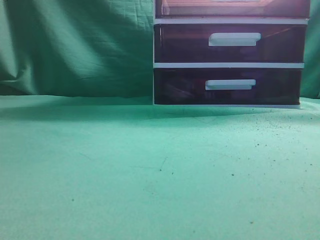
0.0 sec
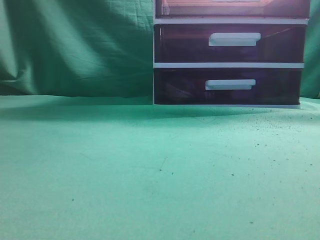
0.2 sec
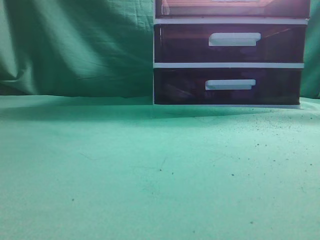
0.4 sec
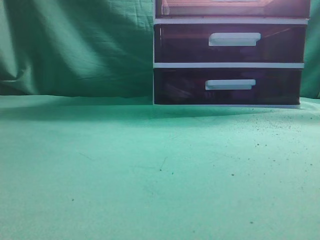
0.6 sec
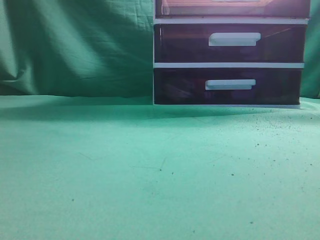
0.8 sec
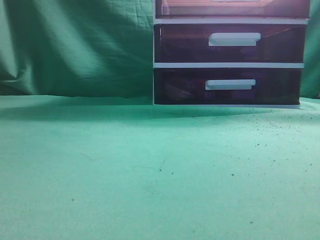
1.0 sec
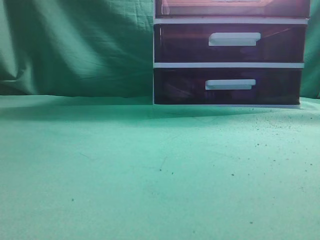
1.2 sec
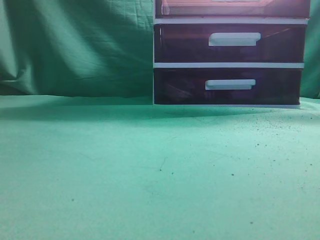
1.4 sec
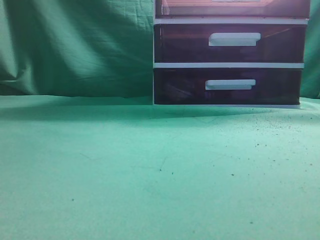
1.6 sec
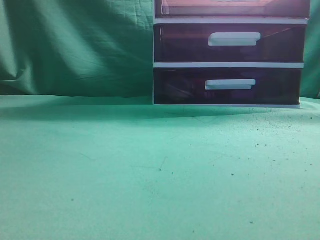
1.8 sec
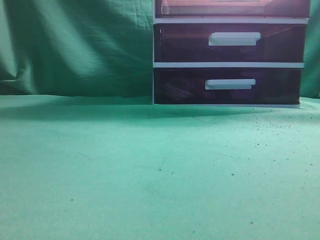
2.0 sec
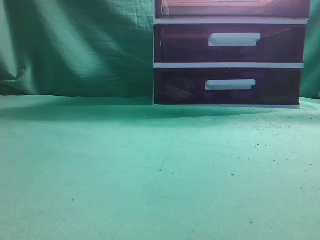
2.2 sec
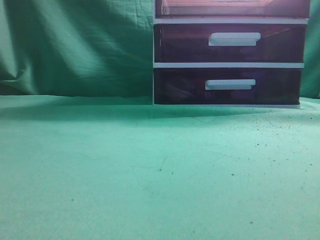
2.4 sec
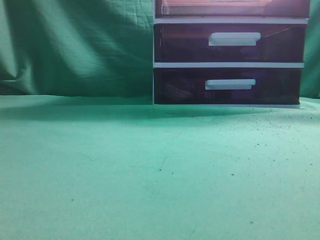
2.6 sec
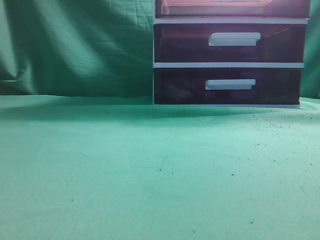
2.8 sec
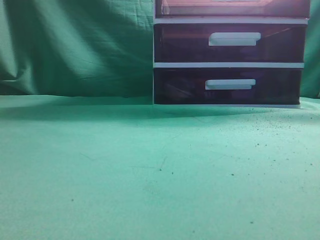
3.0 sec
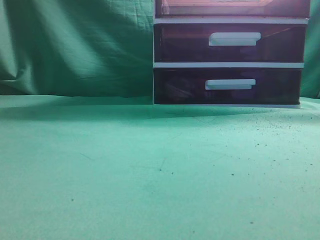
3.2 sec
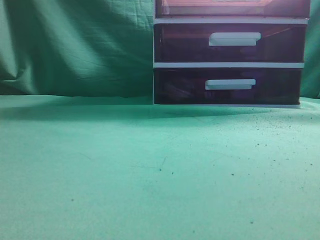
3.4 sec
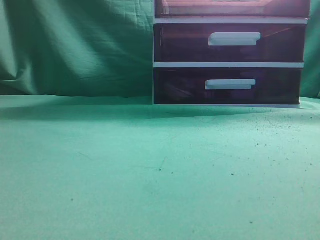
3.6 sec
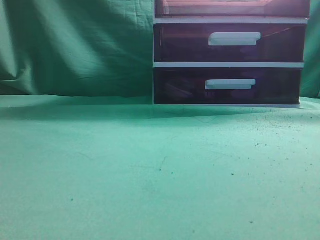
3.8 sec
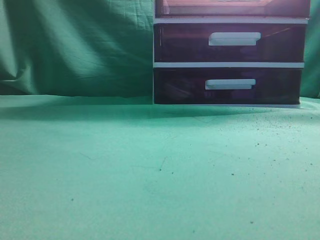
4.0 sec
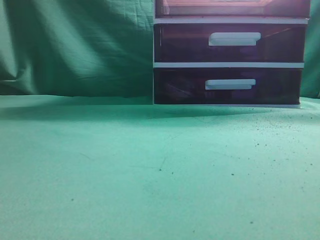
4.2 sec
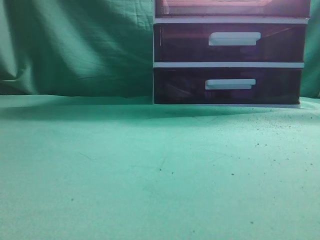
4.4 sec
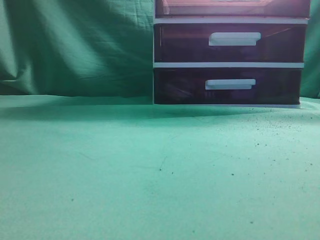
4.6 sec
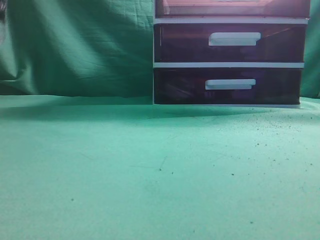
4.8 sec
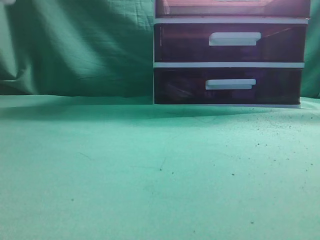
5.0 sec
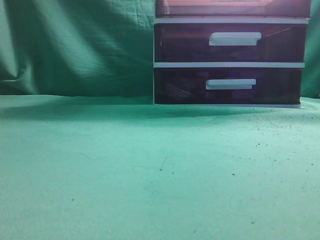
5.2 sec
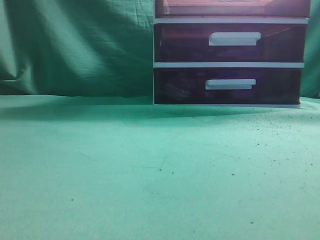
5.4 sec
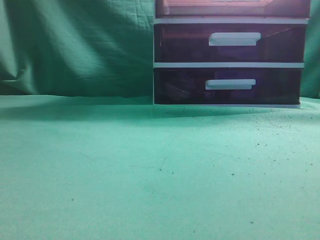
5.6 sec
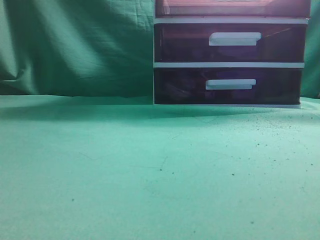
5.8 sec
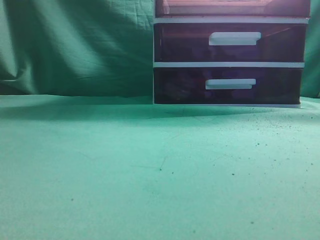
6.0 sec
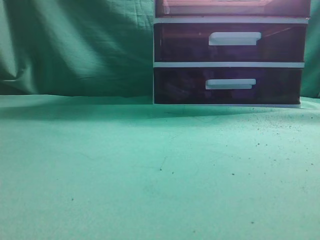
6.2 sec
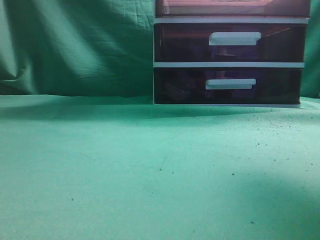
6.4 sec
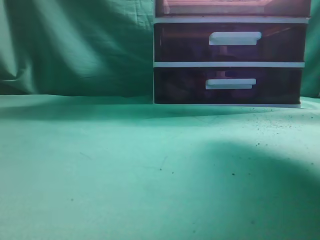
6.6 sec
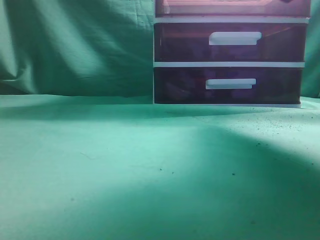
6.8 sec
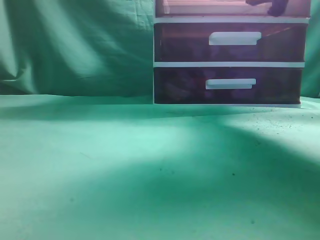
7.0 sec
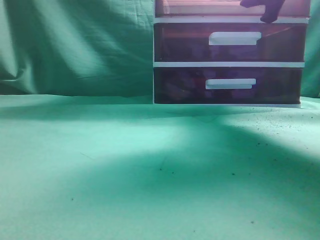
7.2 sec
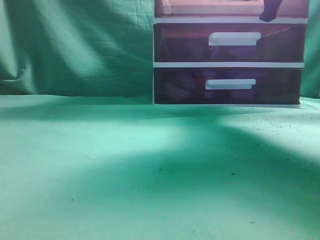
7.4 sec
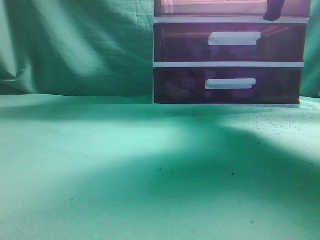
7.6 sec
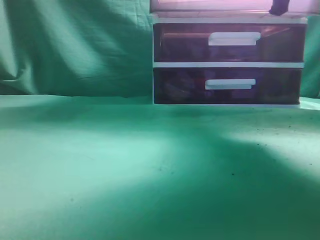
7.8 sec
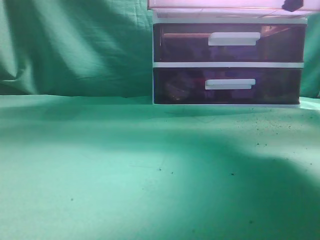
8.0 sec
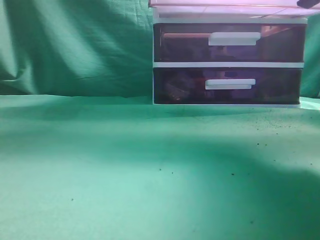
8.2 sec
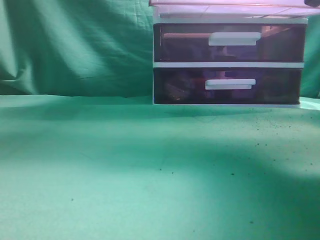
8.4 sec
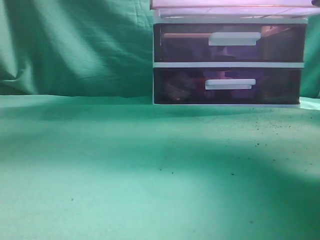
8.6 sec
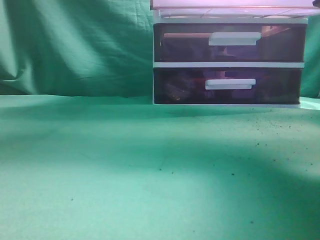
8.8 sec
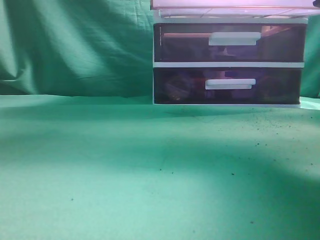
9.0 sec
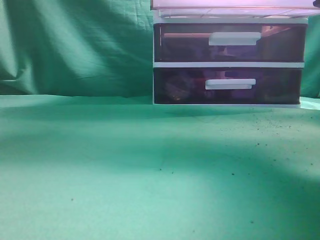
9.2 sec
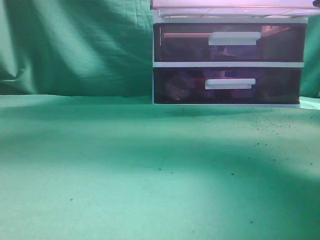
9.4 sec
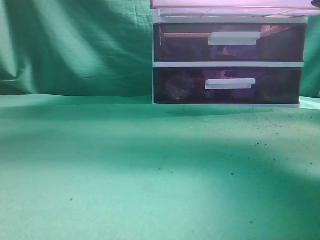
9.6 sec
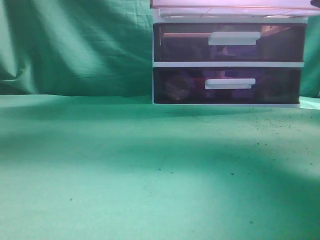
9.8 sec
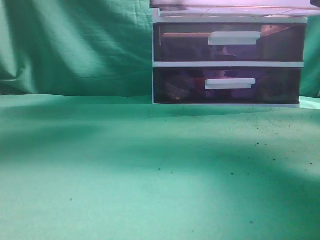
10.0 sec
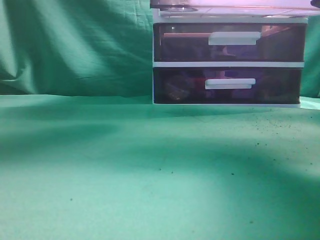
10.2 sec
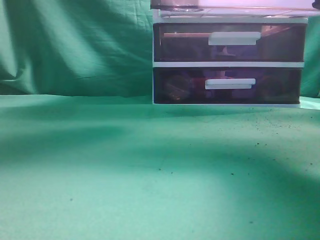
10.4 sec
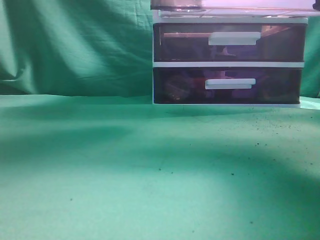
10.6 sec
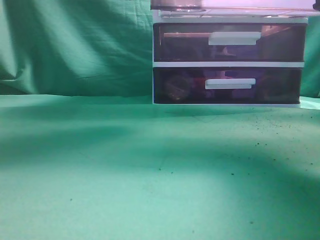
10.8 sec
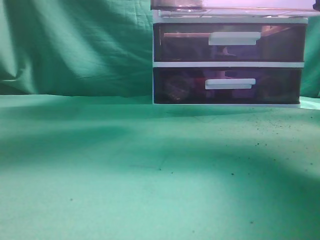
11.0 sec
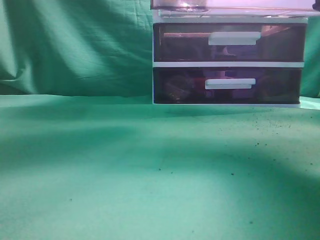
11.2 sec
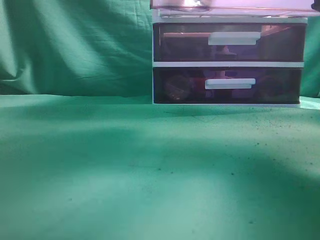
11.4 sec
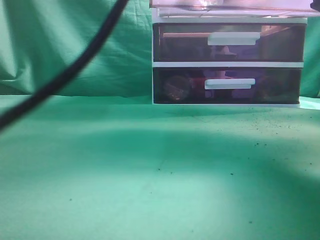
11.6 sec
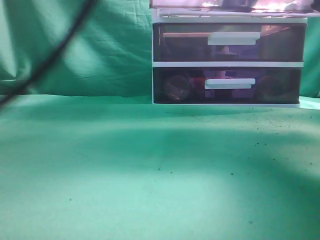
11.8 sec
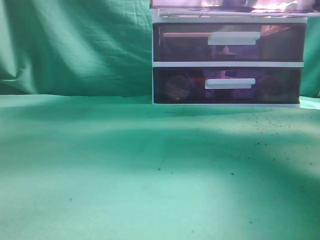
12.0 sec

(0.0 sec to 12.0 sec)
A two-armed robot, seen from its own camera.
Task of the whole recording: place the water bottle into the drawer.
Step, 0.0 sec - 8.6 sec: Open the drawer.
Step, 8.8 sec - 12.0 sec: Place the water bottle inside the drawer.
6.0 sec - 7.6 sec: The right gripper moves forward, roughly 25 cm, and opens, then closes again.
7.6 sec - 9.0 sec: The right gripper is displaced backward by about 10 cm.
9.0 sec - 10.4 sec: The left gripper heads to the right and forward, covering approximately 25 cm.
10.4 sec - 12.0 sec: The left gripper is displaced to the right by about 5 cm, and opens, then closes again.

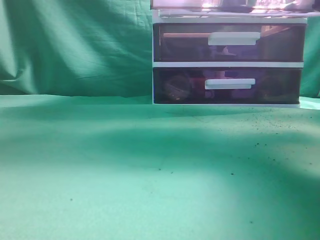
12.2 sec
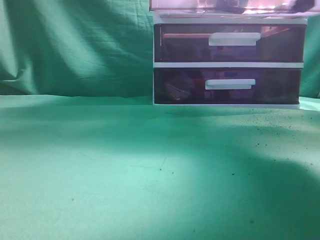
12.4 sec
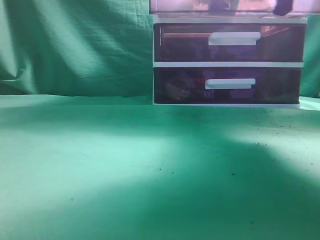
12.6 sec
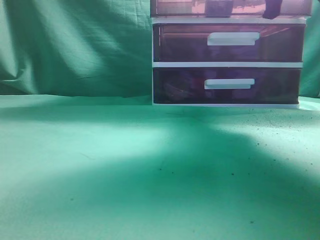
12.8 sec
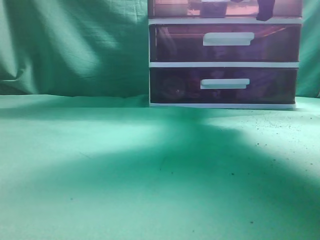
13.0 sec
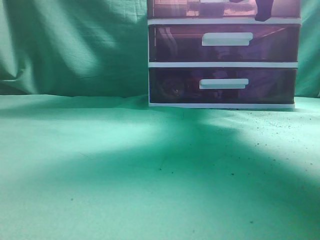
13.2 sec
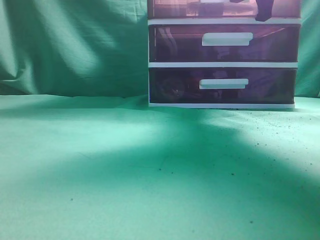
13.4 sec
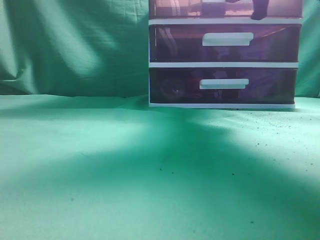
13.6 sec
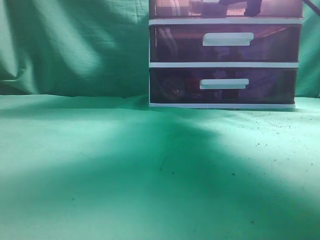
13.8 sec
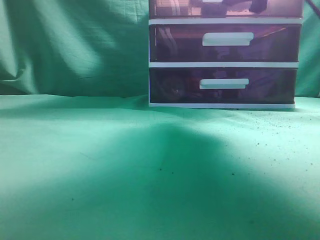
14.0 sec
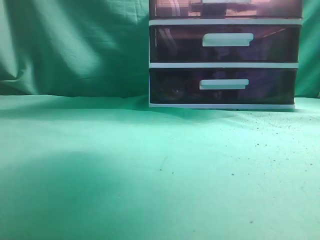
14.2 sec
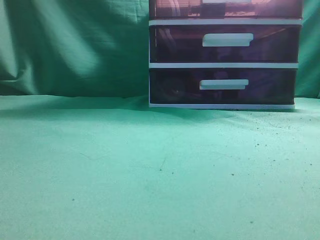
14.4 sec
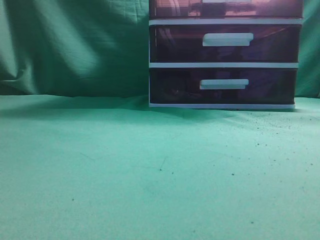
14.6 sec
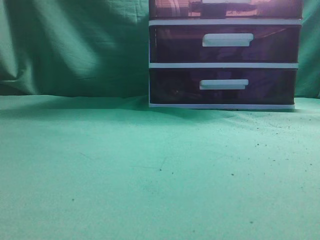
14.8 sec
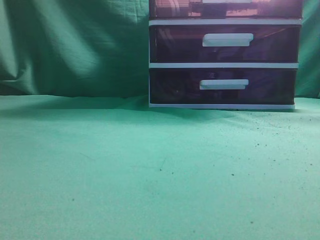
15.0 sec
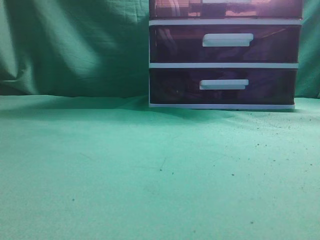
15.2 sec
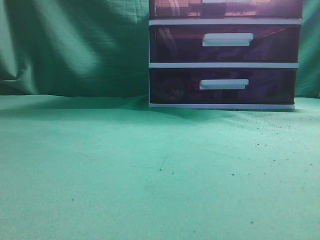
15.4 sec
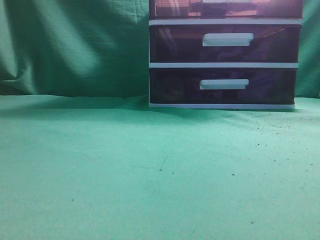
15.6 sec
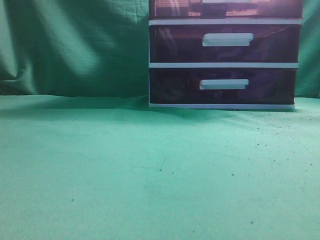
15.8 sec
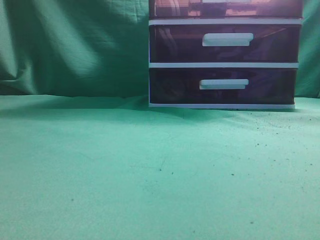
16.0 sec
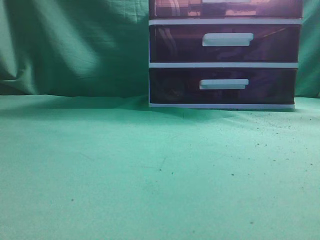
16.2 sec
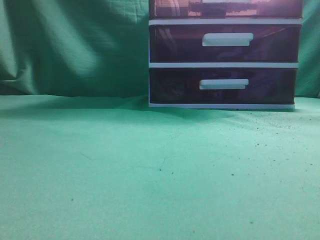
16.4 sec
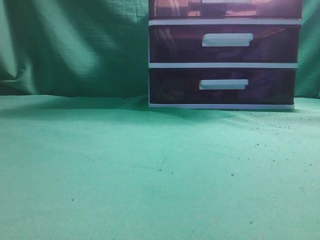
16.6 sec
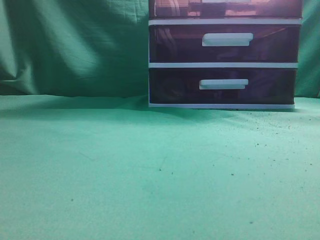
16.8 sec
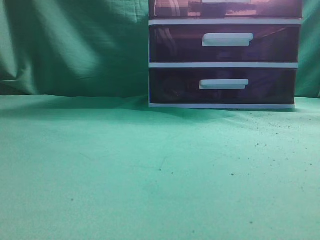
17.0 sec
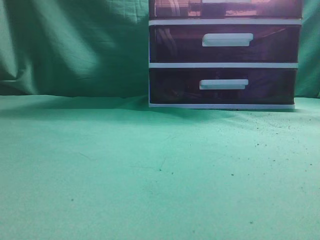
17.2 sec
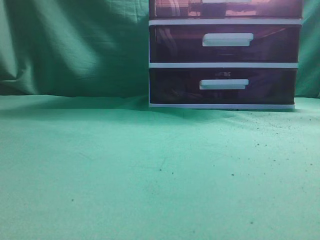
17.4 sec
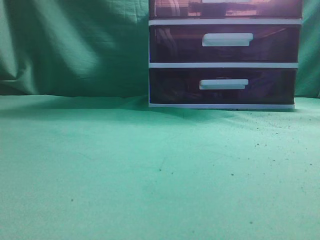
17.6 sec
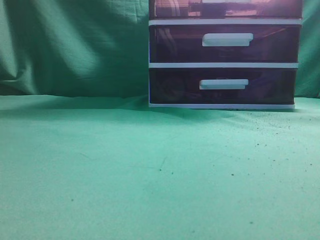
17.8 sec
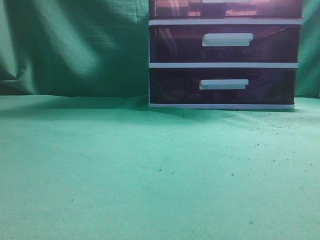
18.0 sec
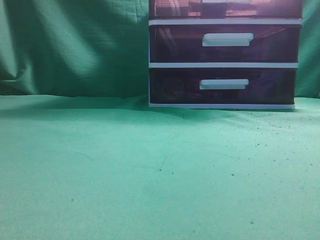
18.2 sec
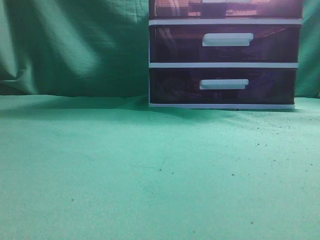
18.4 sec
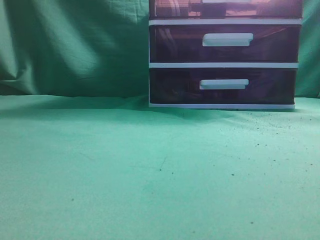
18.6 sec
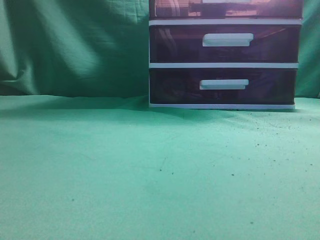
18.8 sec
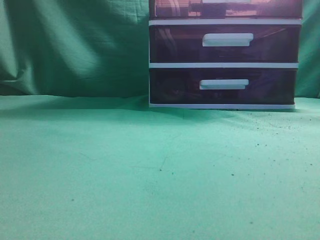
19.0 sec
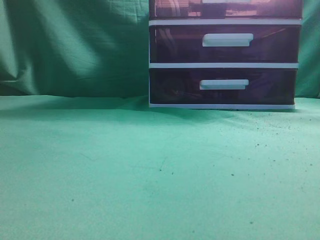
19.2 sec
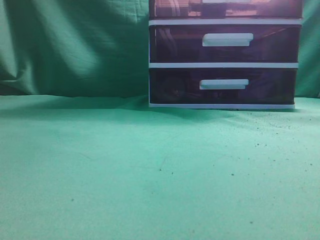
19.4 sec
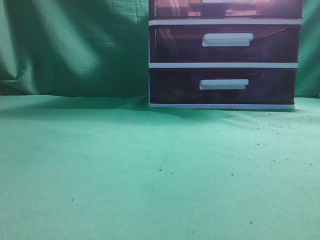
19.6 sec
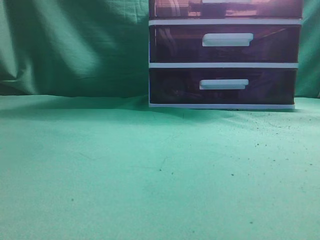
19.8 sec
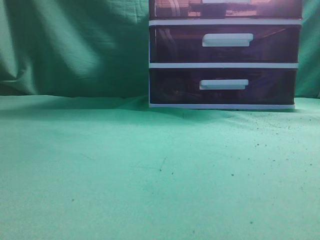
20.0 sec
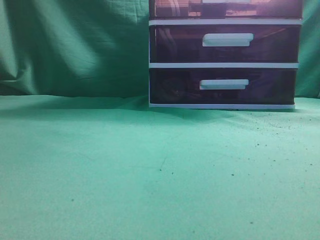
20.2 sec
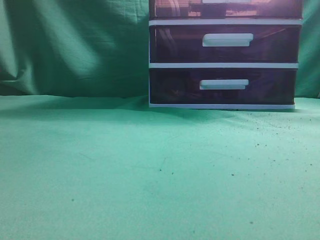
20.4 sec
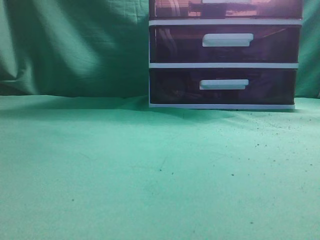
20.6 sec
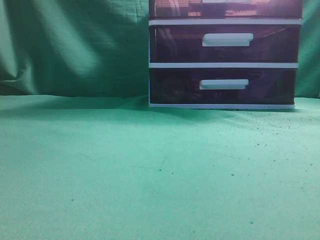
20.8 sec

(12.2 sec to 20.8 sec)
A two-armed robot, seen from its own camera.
Task of the whole recording: place the water bottle into the drawer.
Step, 12.2 sec - 14.0 sec: Close the drawer.
12.2 sec - 13.6 sec: The left gripper is displaced backward and to the left by about 25 cm, while the right gripper goes roughly 15 cm forward.
13.6 sec - 15.0 sec: The left gripper moves downward, to the left and backward, some 15 cm. Meanwhile the right gripper moves backward, some 30 cm, and closes its fingers.
